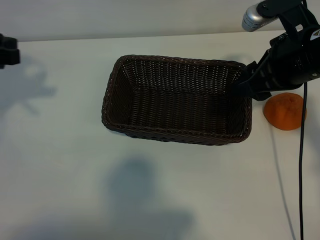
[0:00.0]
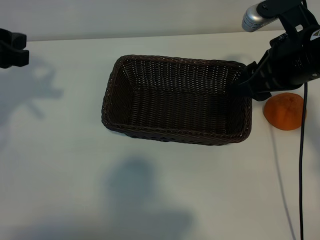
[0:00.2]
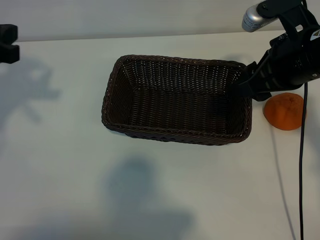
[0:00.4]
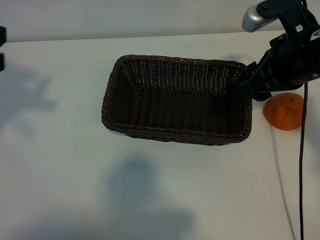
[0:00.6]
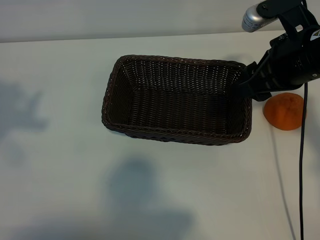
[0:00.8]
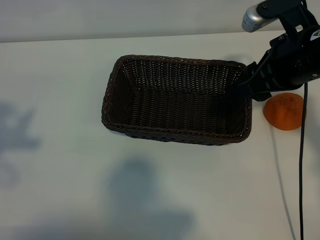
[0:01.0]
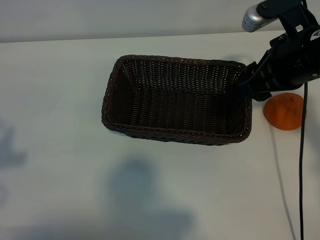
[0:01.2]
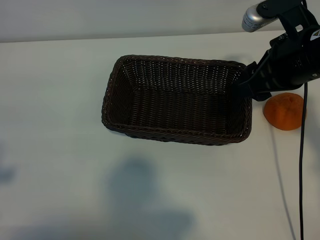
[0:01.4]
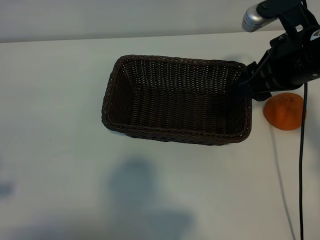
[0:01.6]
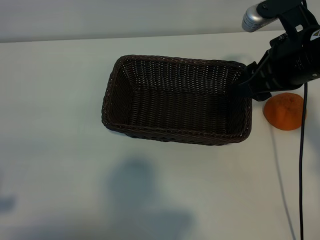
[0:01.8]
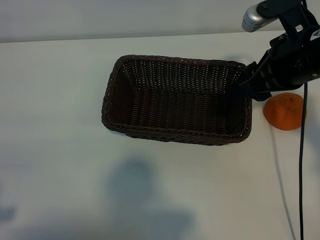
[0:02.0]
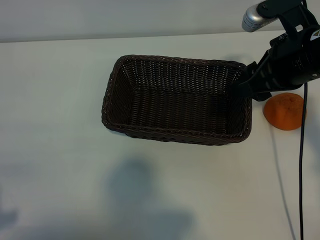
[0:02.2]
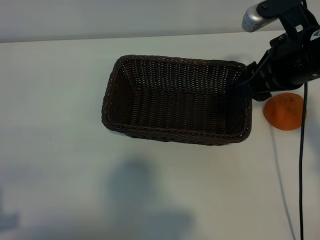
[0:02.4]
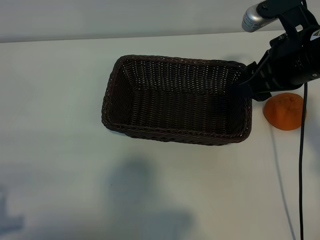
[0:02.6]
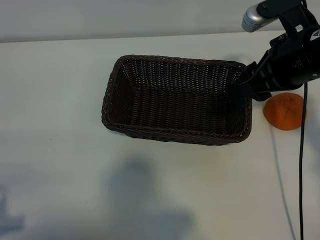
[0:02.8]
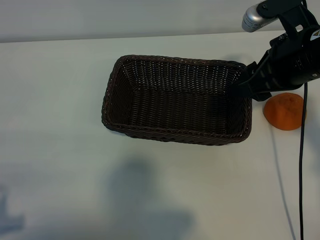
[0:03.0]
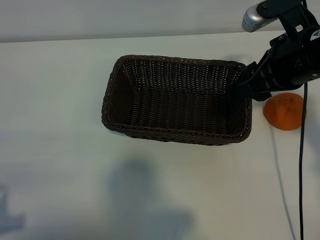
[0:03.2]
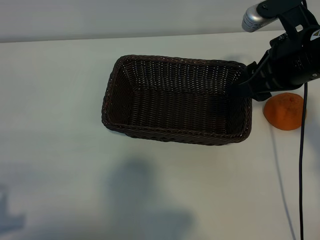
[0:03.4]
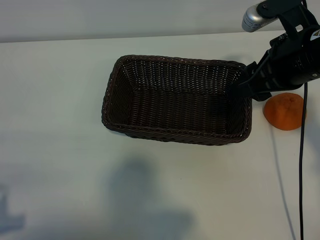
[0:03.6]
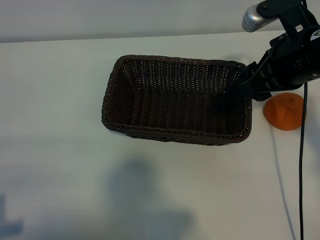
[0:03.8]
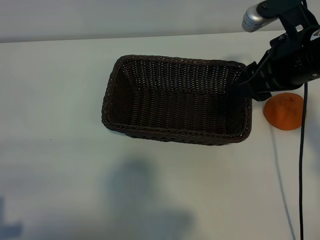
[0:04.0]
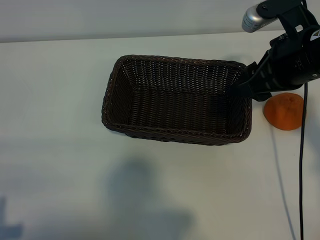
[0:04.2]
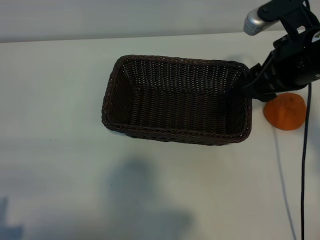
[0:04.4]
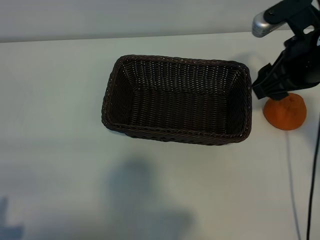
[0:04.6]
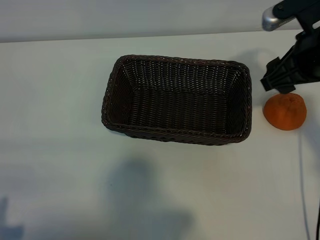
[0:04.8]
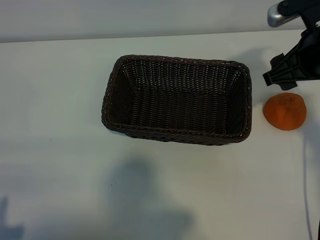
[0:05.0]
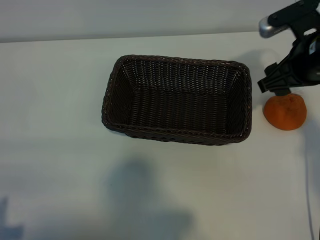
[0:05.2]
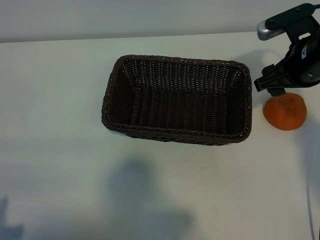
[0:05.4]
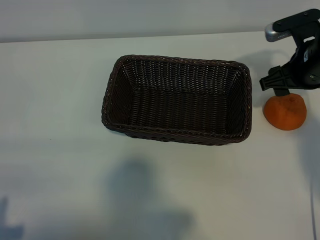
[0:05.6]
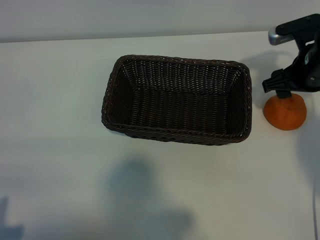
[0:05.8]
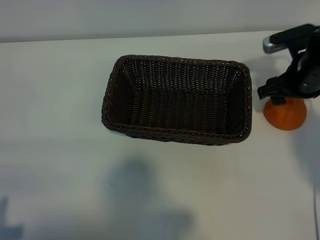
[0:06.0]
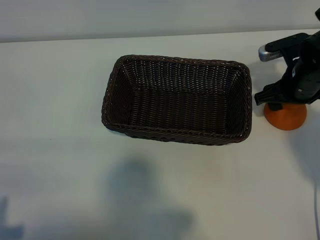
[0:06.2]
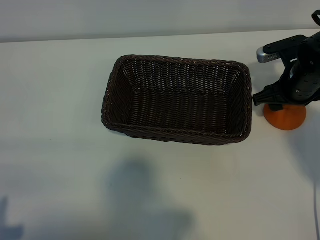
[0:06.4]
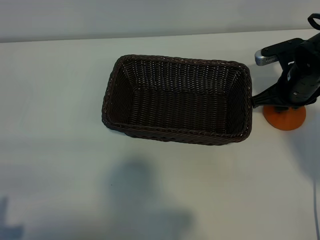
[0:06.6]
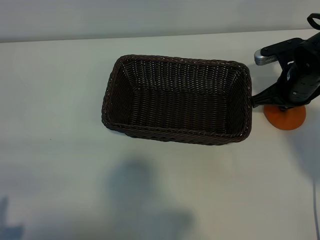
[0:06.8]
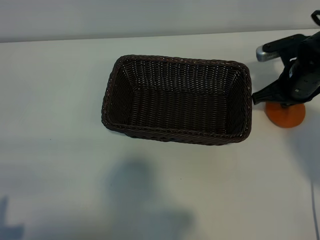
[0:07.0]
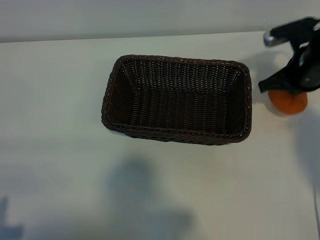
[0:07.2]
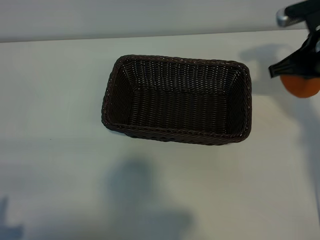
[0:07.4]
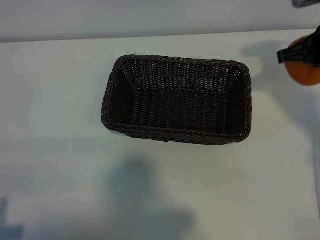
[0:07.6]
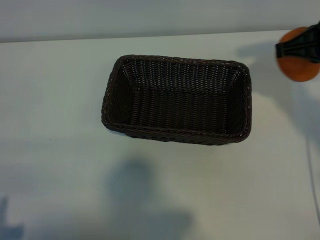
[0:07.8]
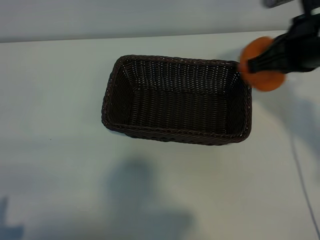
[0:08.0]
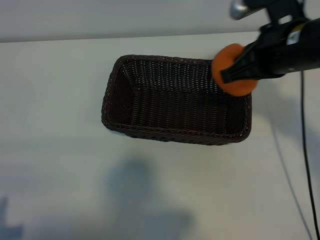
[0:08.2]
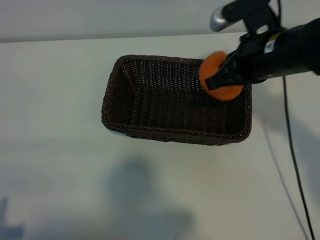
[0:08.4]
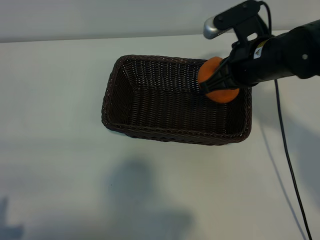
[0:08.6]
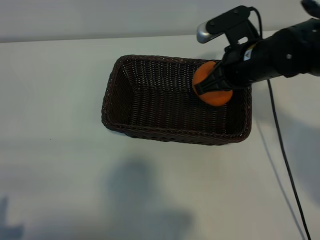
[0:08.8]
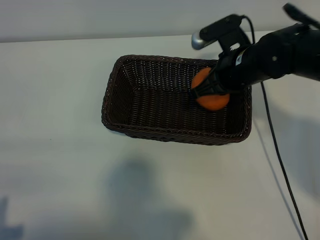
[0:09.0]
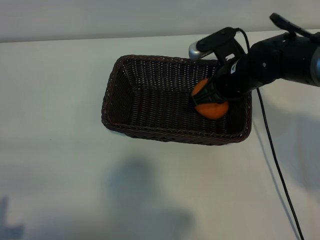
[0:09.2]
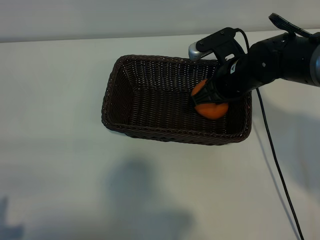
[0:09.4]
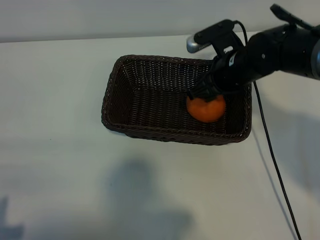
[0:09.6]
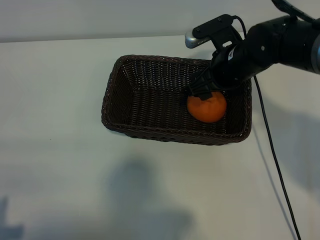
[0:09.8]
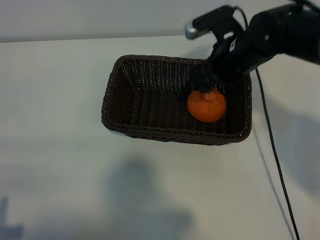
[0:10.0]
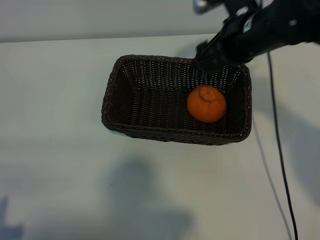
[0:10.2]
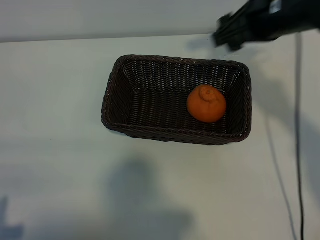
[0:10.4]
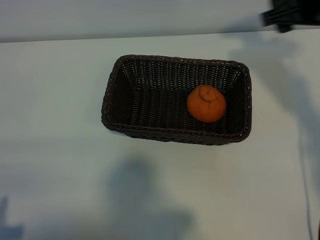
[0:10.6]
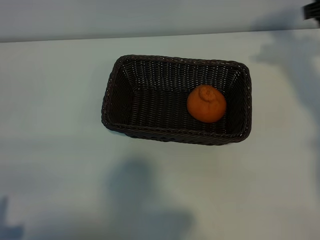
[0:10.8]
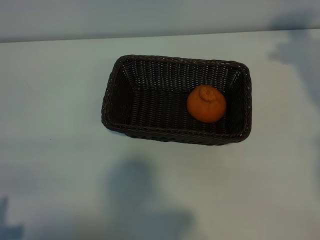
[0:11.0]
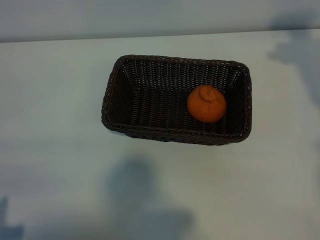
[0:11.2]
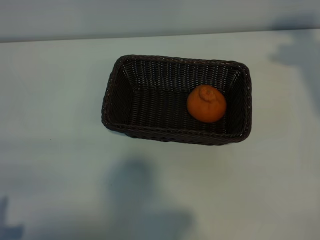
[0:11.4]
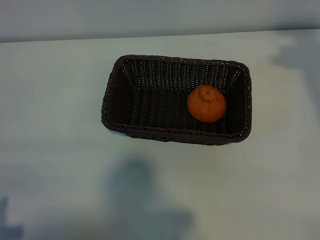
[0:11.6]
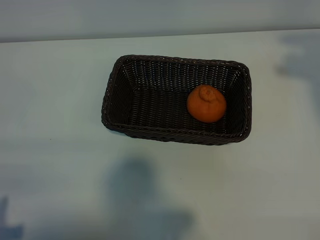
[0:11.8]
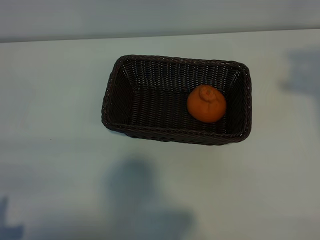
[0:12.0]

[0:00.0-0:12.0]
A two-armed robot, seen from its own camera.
Task of the whole recording: pick up the orange and put it into the basket.
Step, 0:00.0 to 0:06.8: Grasp the orange with right gripper.
Step, 0:07.0 to 0:09.6: Place the orange in the basket with right gripper.
